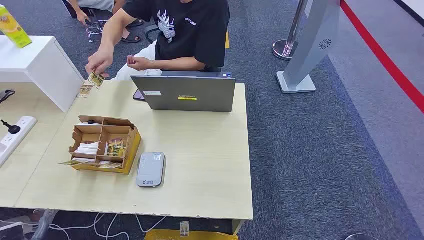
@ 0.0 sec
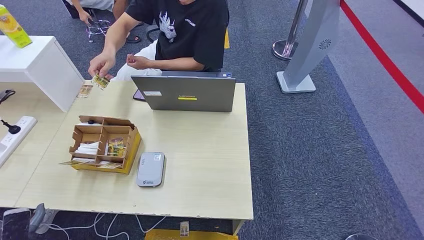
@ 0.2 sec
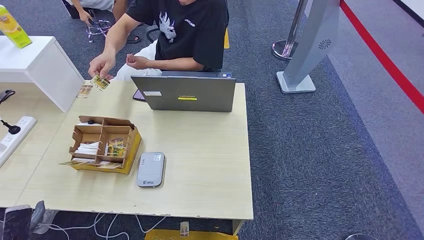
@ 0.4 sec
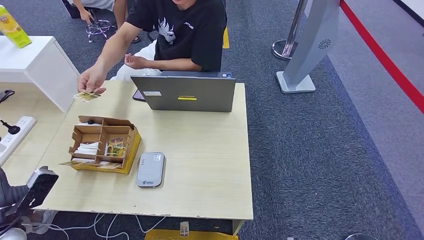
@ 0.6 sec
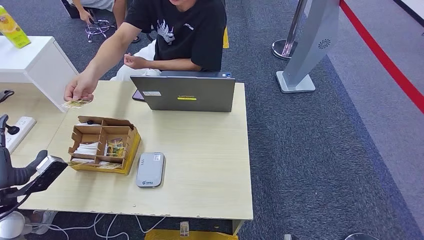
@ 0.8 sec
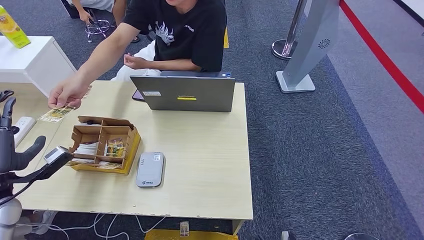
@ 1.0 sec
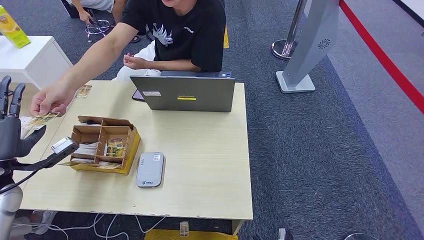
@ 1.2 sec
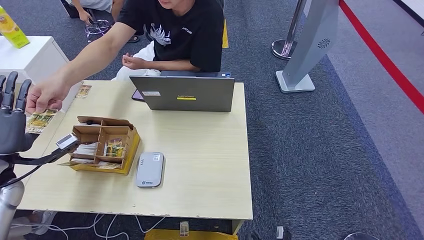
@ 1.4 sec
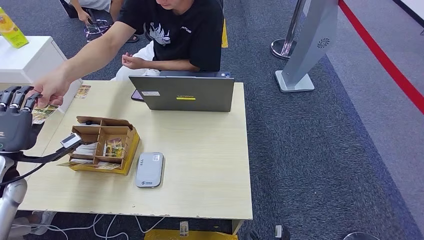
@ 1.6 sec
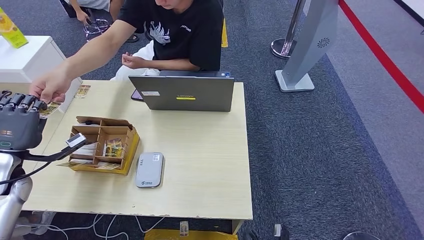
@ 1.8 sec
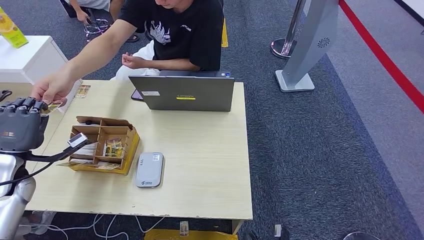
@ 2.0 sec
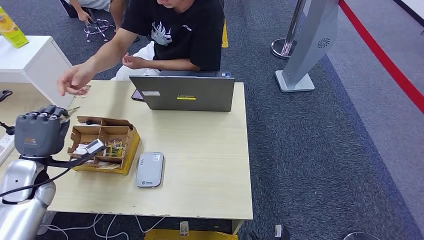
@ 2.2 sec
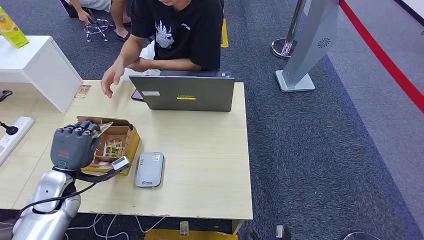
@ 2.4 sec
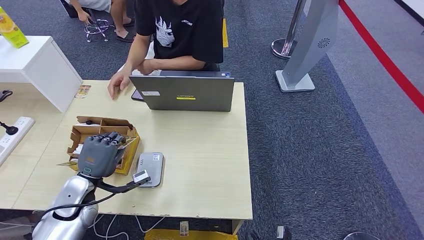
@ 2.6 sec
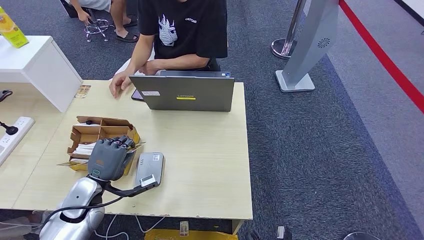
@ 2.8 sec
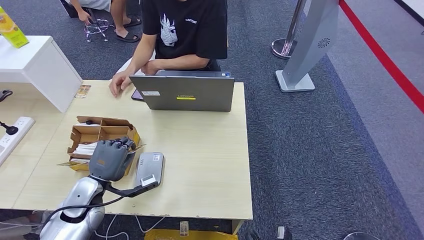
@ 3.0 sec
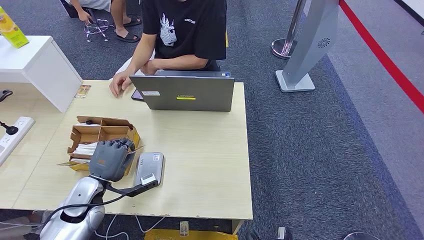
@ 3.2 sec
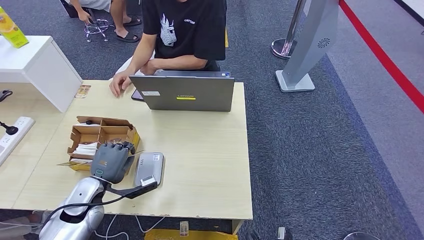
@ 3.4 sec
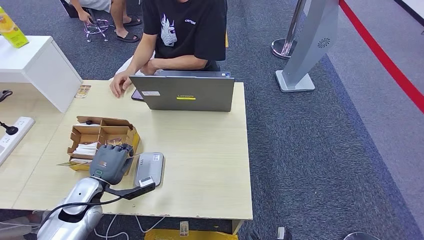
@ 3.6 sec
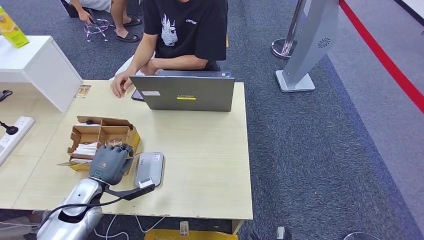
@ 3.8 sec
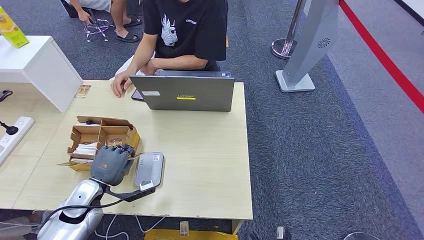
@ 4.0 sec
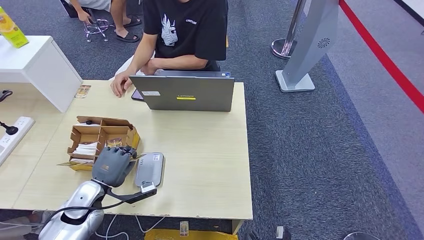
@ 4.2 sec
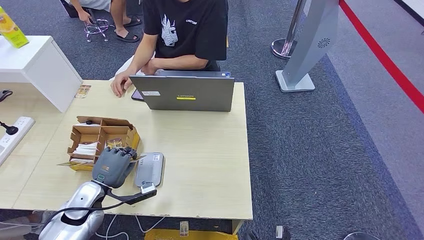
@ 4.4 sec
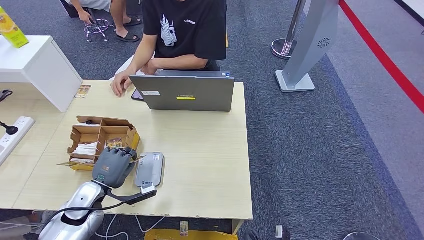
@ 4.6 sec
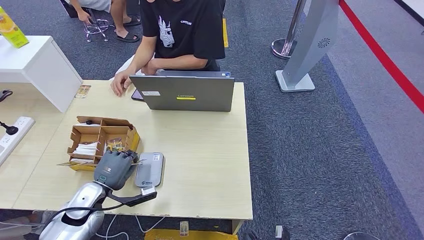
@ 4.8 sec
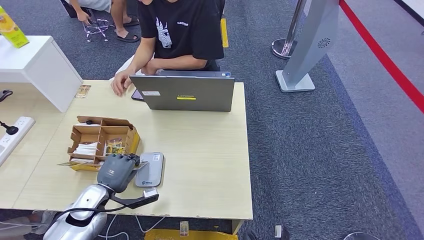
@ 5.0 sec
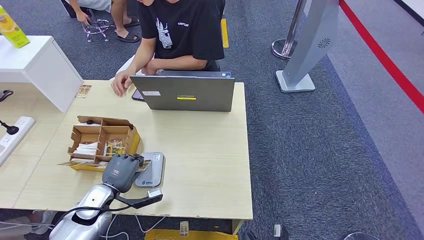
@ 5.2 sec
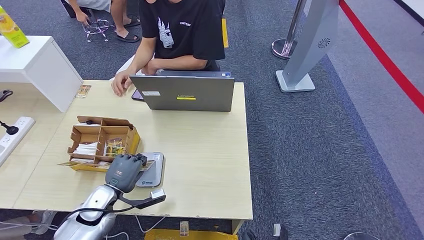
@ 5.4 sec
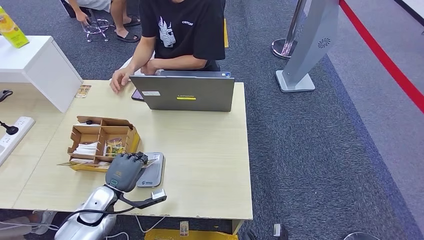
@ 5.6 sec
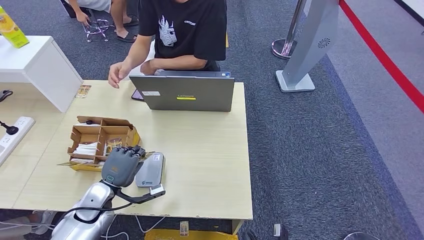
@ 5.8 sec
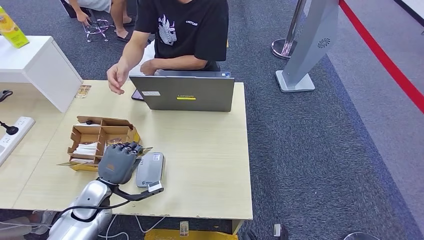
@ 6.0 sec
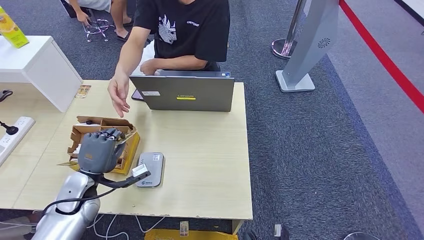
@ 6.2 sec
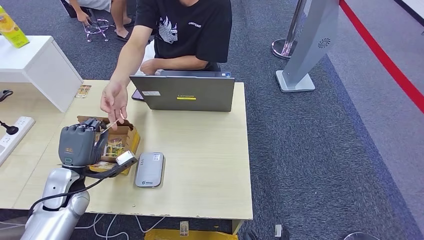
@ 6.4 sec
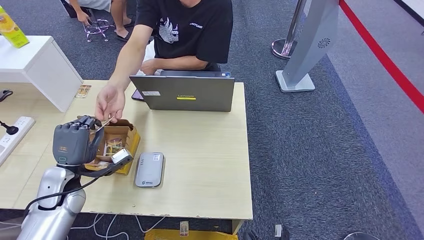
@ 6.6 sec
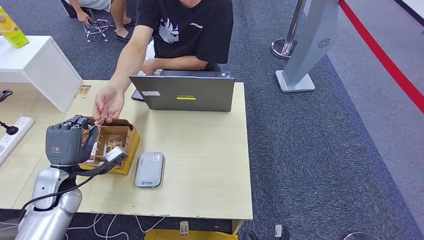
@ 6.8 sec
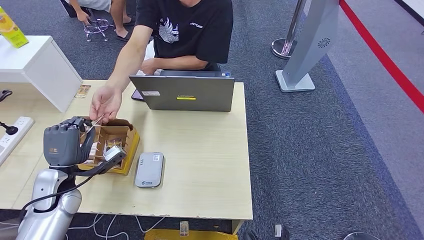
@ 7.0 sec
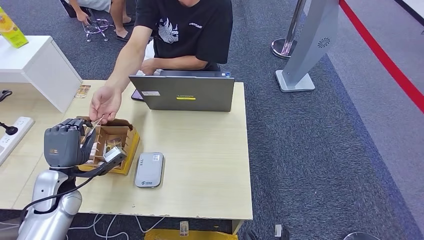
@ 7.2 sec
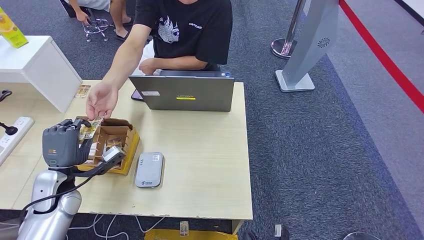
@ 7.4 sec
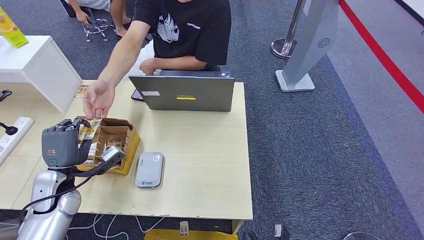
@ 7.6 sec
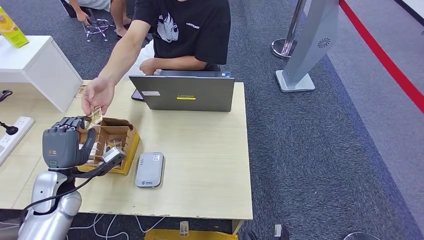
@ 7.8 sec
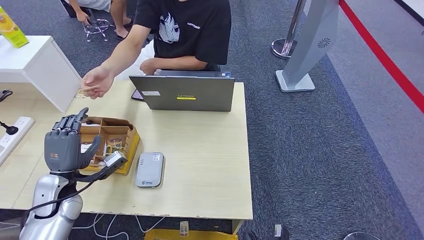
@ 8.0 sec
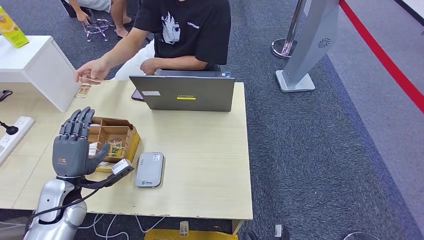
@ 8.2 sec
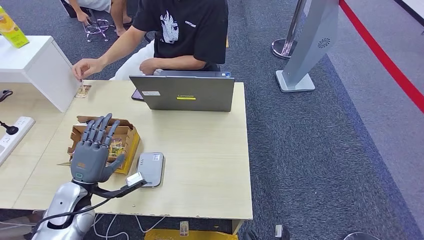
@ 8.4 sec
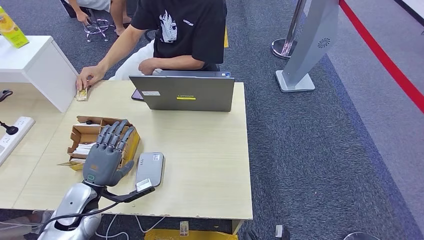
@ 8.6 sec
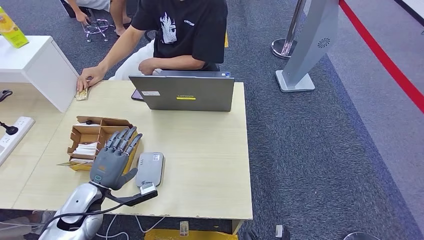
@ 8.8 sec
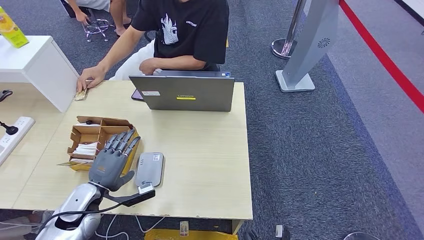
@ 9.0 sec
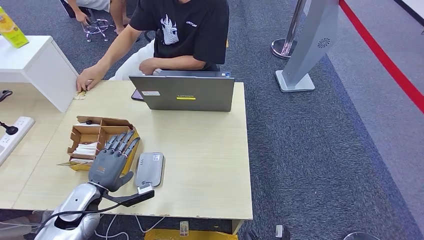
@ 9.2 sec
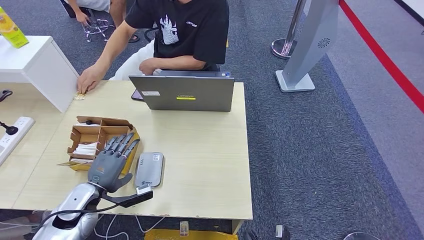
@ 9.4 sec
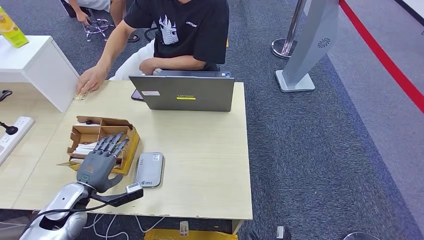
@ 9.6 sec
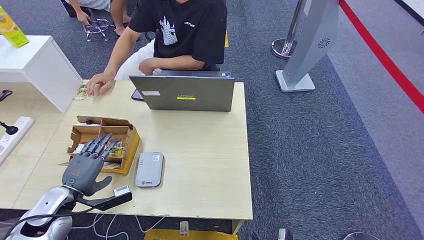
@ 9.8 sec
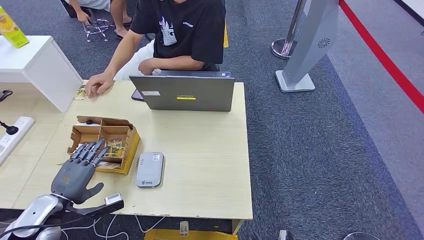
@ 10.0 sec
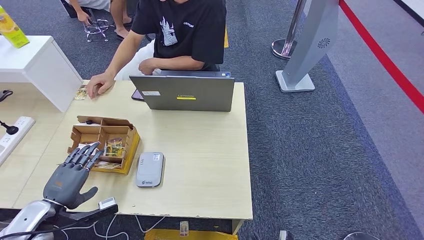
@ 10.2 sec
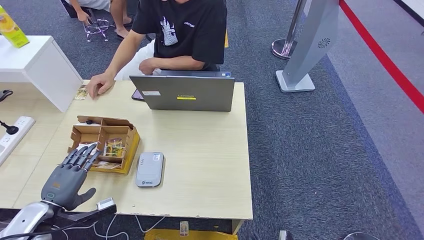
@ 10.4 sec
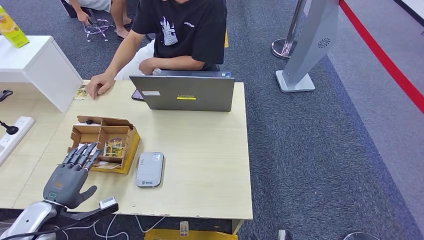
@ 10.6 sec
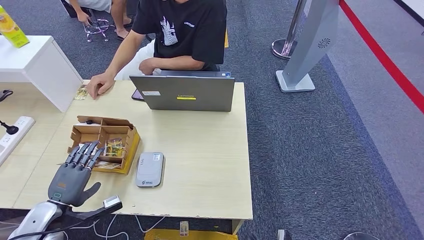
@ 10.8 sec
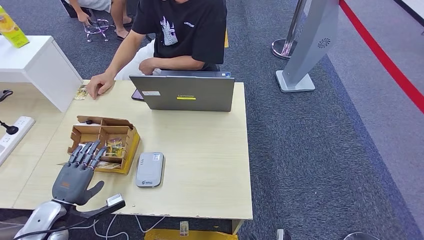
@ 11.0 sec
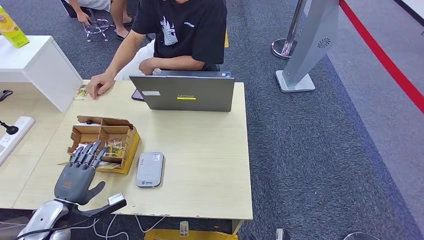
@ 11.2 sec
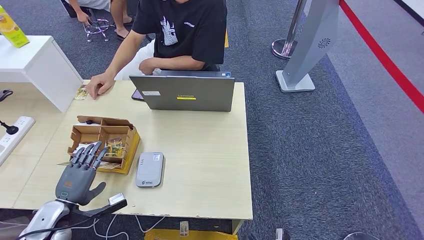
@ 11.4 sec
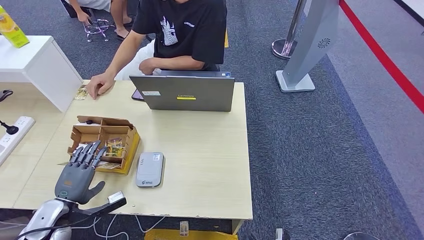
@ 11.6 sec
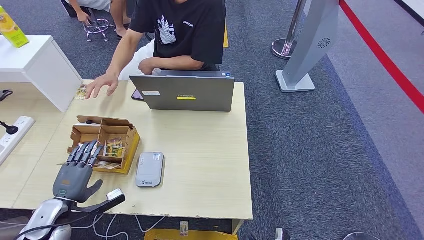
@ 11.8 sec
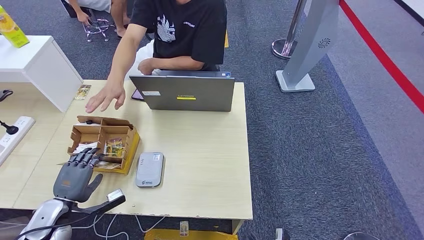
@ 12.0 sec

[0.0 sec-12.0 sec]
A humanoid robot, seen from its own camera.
Step, 0.0 sec to 2.0 sec: Take the ID card from the person's hand.
Step, 2.2 sec to 5.6 sec: Place the ID card on the card reader.
Step, 5.8 sec to 8.6 sec: Hand the ID card to the person.
1.6 sec to 3.0 sec: The left hand moves to the right and downward, approximately 20 cm.
3.0 sec to 6.0 sec: There are only small adjustments of the hands.
6.0 sec to 7.6 sec: The left hand shifts some 10 cm to the left and upward.
7.6 sec to 9.0 sec: The left hand changes place by roughly 5 cm.
9.0 sec to 10.4 sec: The left hand shifts approximately 10 cm to the left and backward.
10.4 sec to 12.0 sec: There are only small adjustments of the hands.

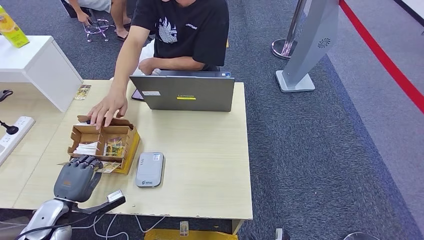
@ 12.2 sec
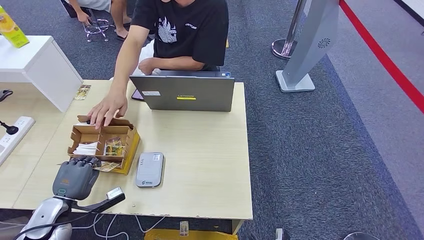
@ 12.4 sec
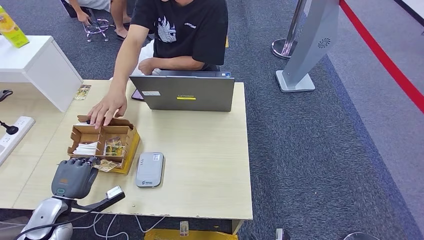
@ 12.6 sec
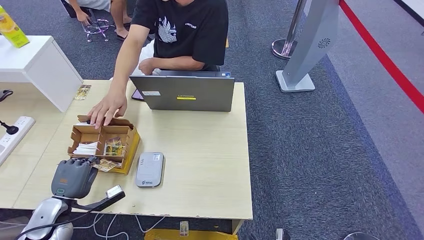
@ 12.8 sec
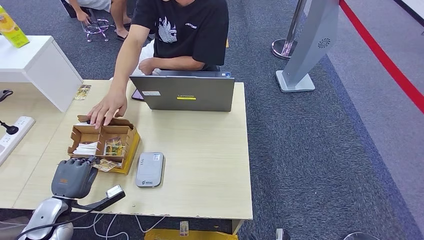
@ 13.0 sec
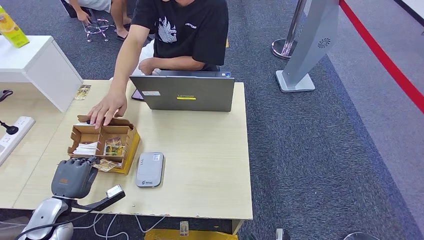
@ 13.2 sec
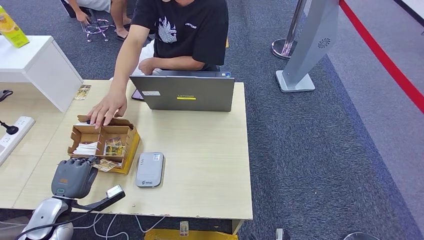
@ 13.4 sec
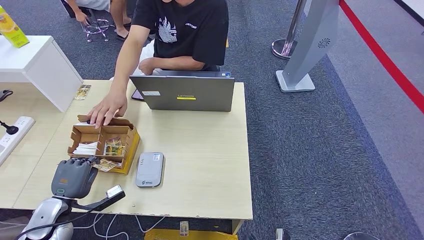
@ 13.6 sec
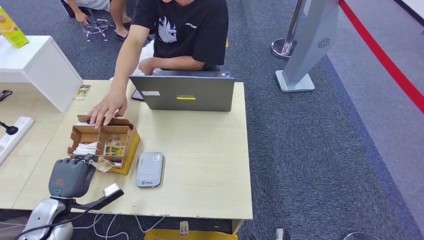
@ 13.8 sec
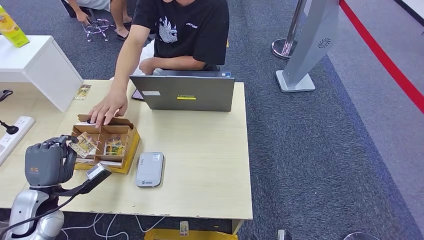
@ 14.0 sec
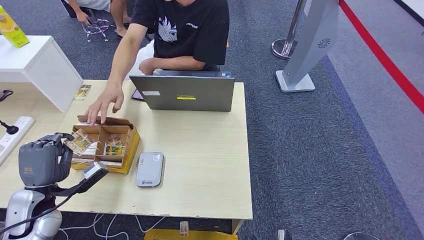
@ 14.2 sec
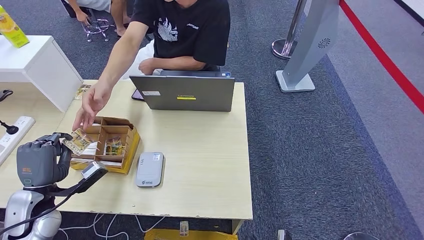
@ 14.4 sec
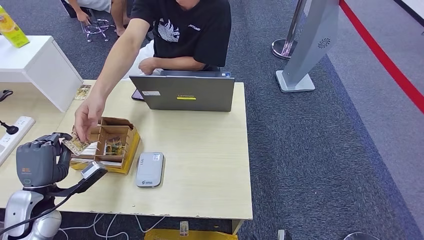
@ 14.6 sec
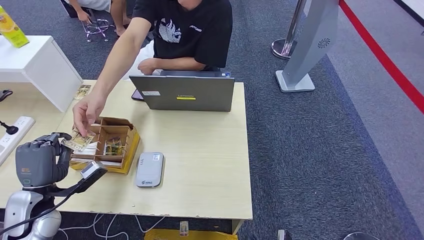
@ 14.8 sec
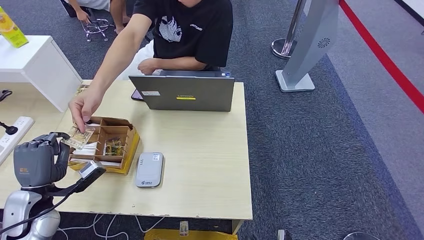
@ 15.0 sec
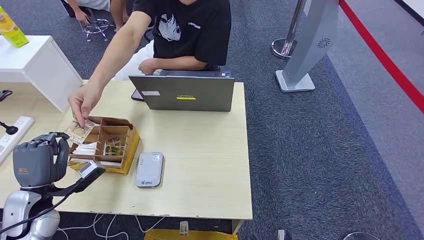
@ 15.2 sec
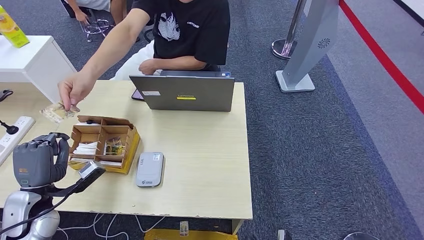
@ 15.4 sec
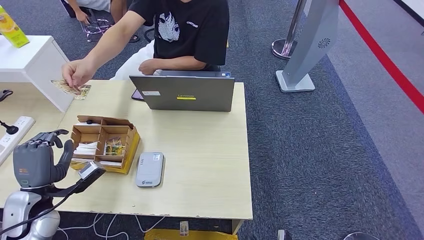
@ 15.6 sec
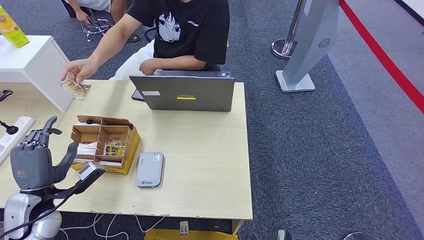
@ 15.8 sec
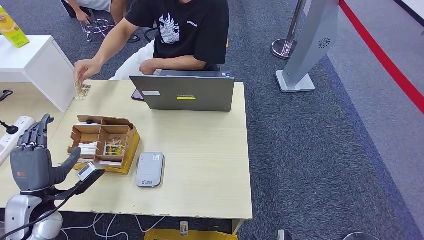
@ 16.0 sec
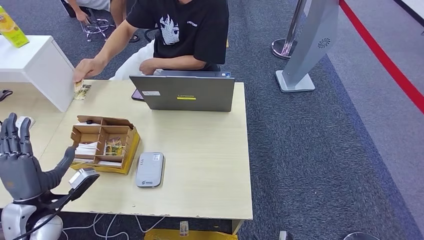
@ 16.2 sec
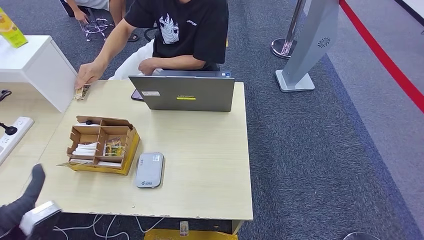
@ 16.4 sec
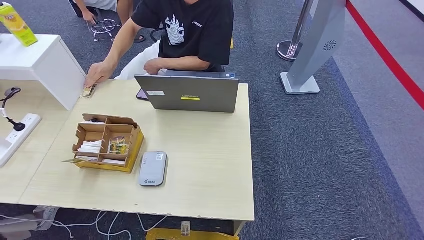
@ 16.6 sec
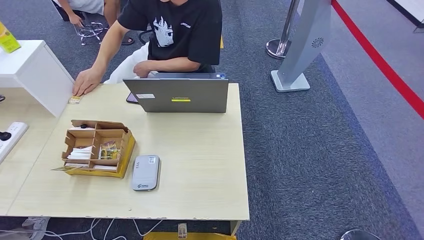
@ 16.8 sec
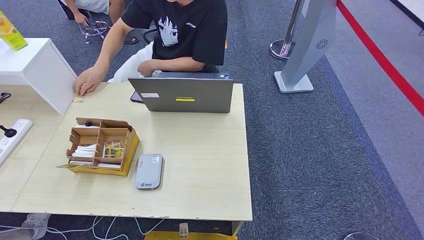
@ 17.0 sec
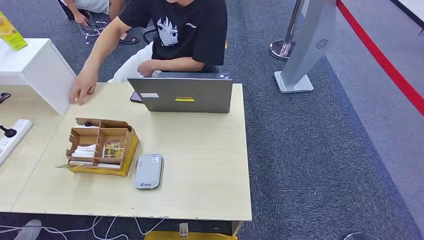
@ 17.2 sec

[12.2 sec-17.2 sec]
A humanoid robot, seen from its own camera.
Step, 14.2 sec to 17.0 sec: Hand the room key to the person.
12.2 sec to 13.8 sec: The hands stay close to where they were, moving slightly.
13.8 sec to 15.6 sec: The left hand shifts roughly 5 cm upward.
15.6 sec to 17.2 sec: The left hand moves downward, backward and to the right, some 35 cm. Meanwhile the right hand heads to the right and backward, covering roughly 10 cm.
